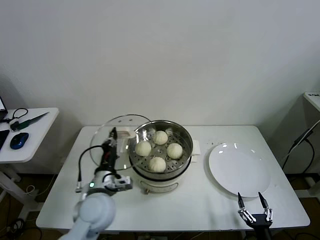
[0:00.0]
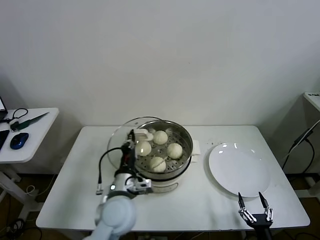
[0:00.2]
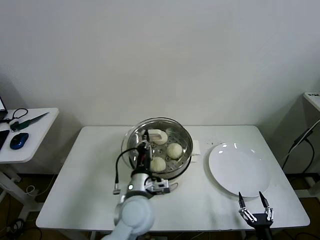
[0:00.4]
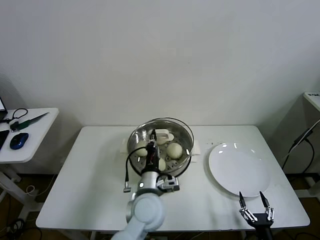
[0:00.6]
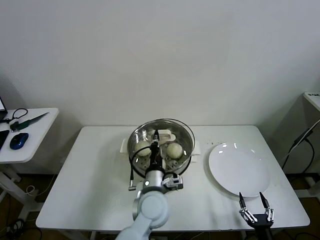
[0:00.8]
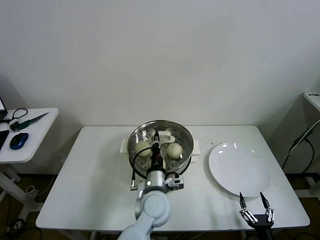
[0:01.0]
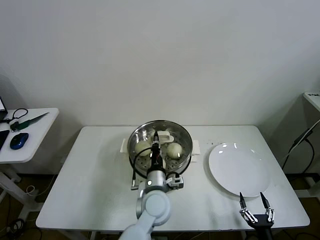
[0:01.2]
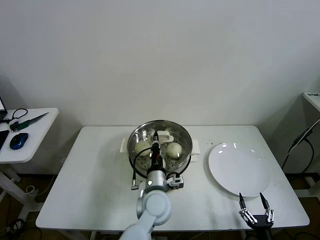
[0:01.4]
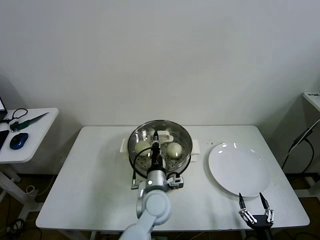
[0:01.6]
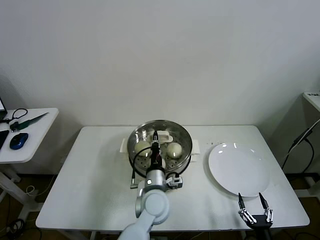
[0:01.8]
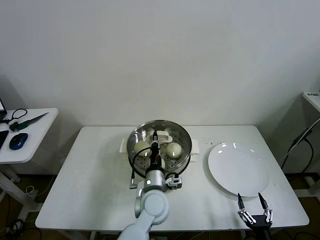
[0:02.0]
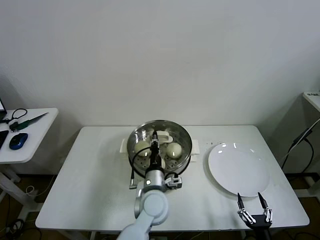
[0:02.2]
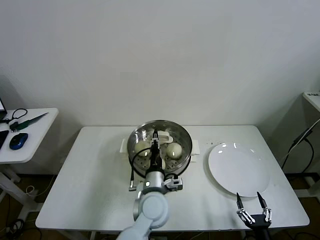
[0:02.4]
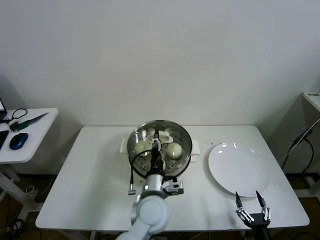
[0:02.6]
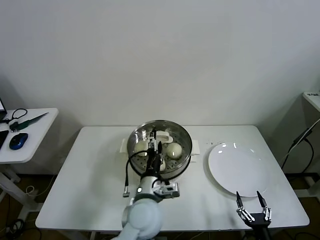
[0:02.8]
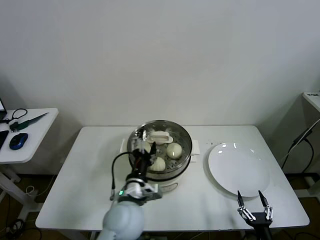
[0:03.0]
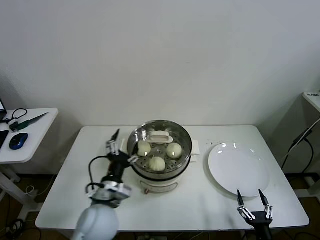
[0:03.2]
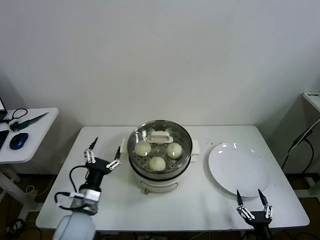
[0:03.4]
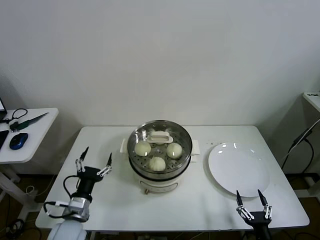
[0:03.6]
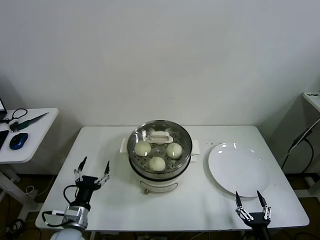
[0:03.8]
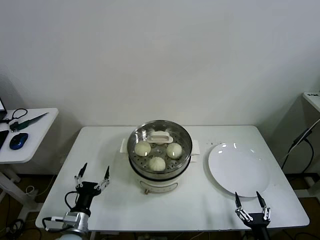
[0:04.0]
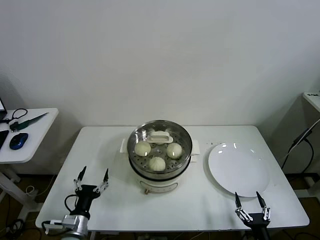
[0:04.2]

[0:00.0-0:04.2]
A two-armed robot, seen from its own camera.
Task of the whole recording: take steamed baozi put them in steamer then cover it.
Step, 0:00.0 to 0:02.8: Place the pot lid on the steamer with left gripper.
0:00.0 to 0:01.4: The left gripper shifts some 20 cm to the right.
0:01.4 to 0:02.8: The left gripper shifts by roughly 5 cm, and opens its fingers.
0:02.8 to 0:04.2: The left gripper travels to the left and downward by approximately 30 cm.
